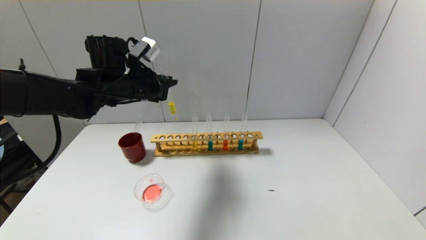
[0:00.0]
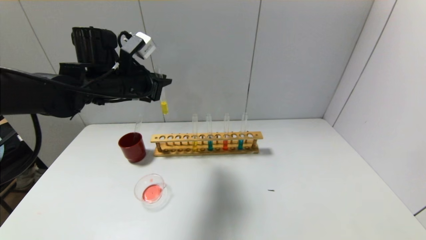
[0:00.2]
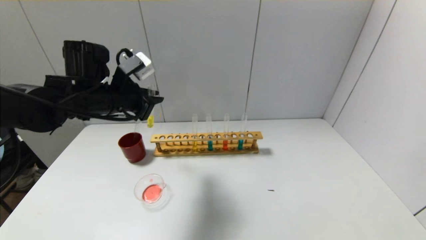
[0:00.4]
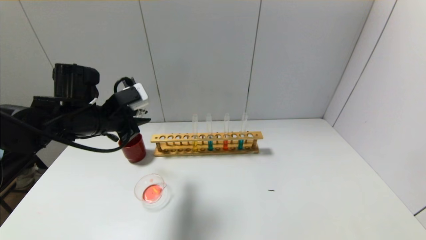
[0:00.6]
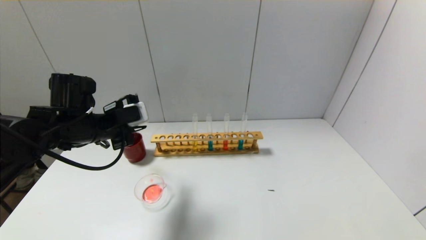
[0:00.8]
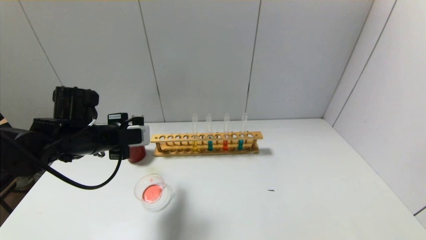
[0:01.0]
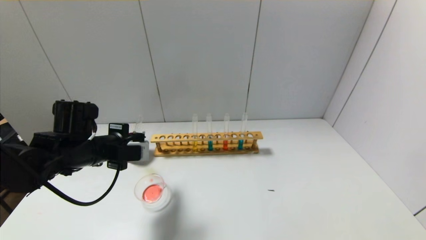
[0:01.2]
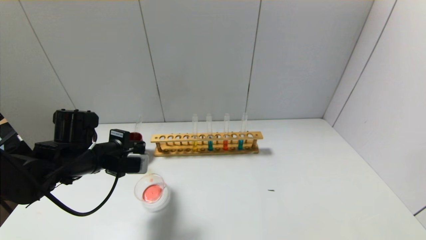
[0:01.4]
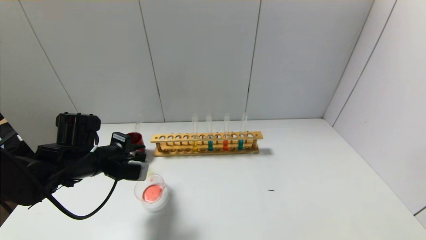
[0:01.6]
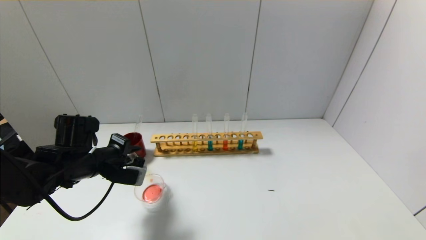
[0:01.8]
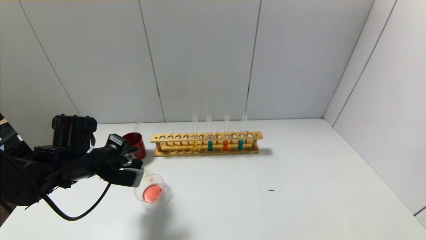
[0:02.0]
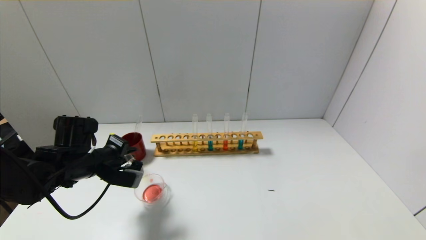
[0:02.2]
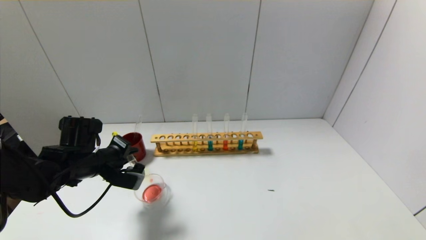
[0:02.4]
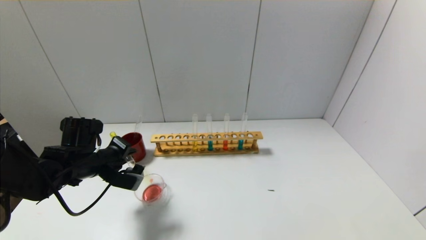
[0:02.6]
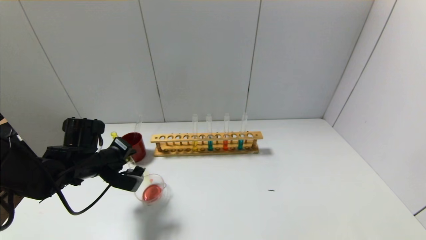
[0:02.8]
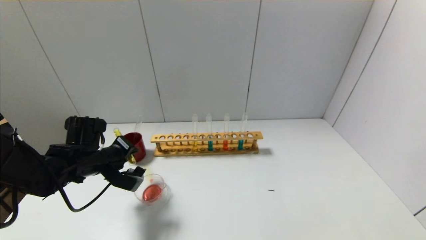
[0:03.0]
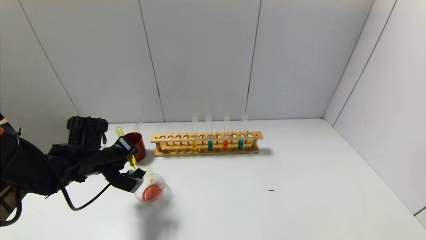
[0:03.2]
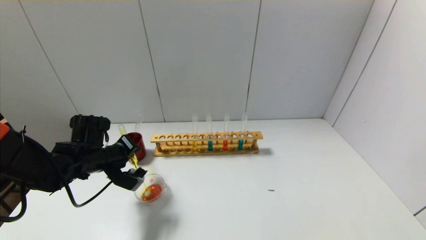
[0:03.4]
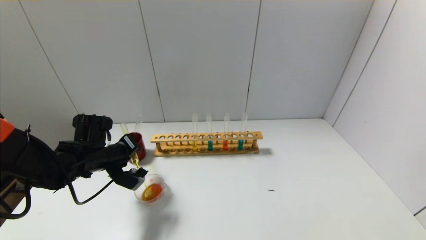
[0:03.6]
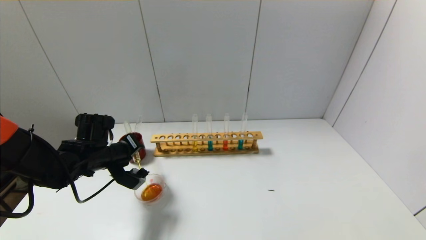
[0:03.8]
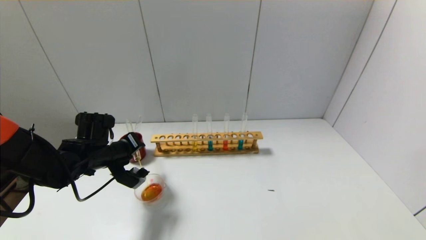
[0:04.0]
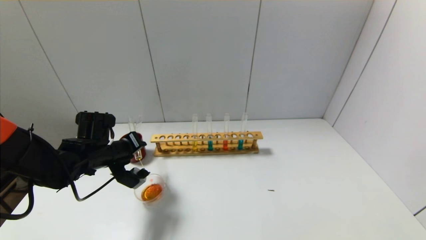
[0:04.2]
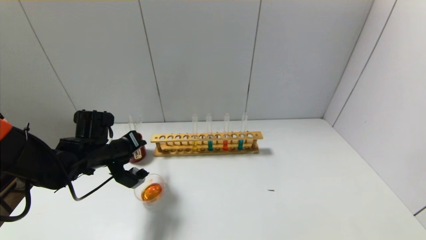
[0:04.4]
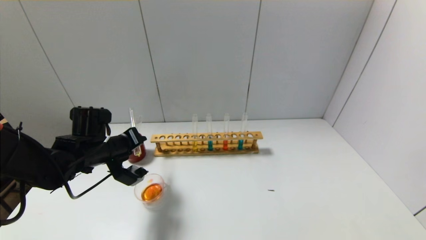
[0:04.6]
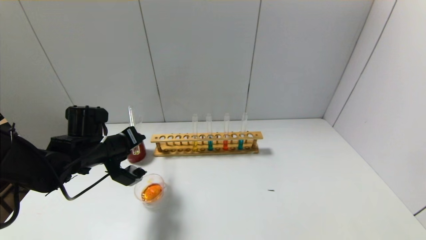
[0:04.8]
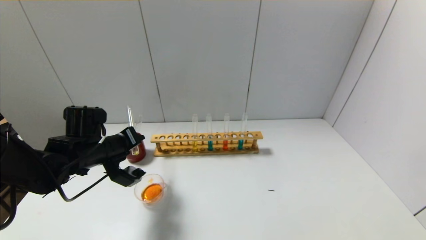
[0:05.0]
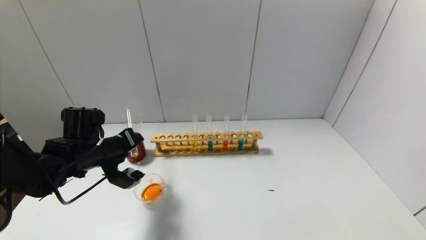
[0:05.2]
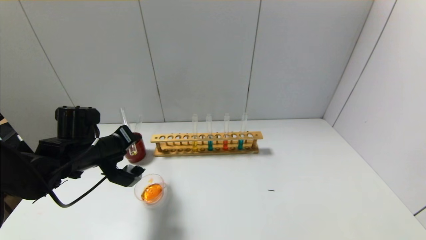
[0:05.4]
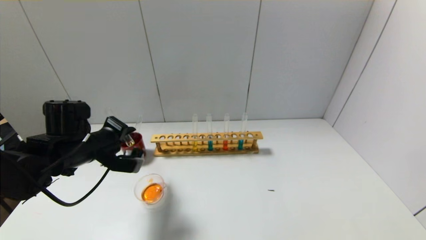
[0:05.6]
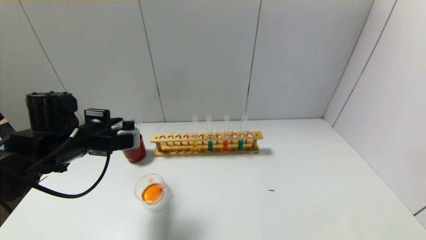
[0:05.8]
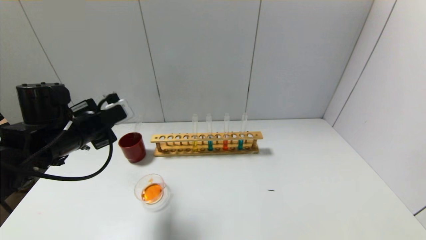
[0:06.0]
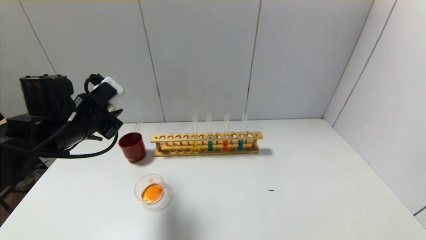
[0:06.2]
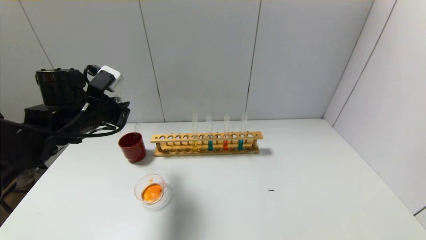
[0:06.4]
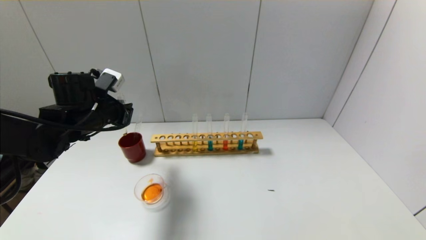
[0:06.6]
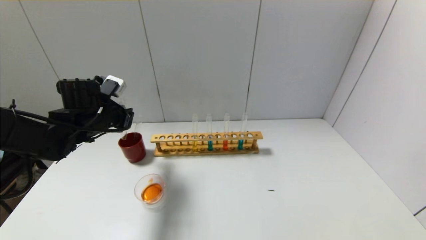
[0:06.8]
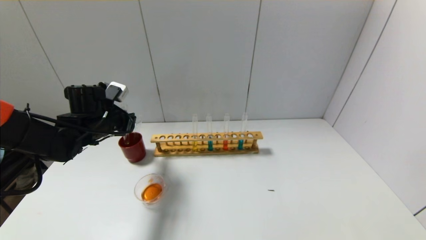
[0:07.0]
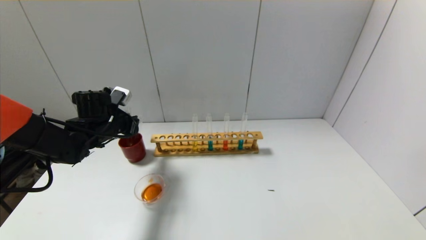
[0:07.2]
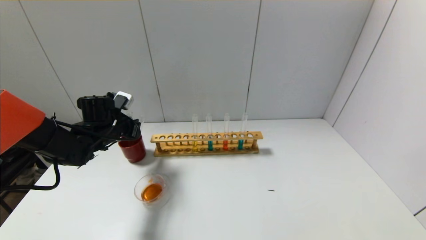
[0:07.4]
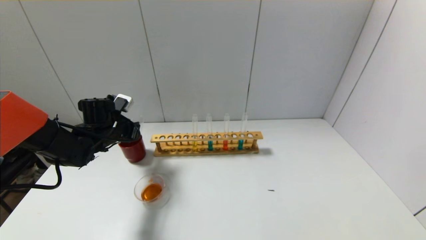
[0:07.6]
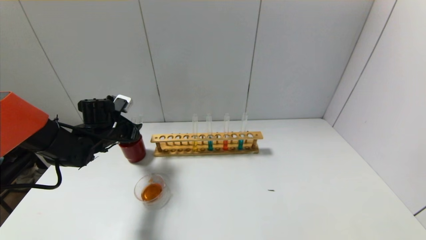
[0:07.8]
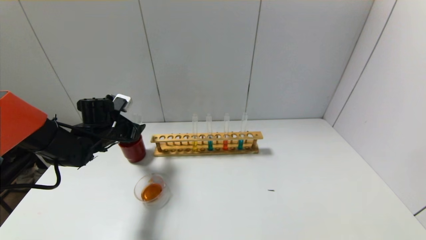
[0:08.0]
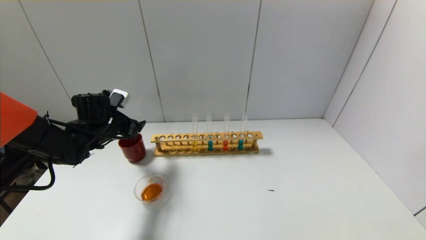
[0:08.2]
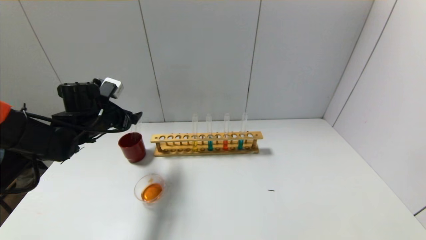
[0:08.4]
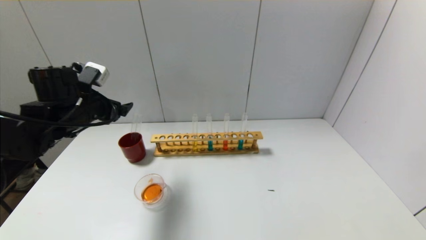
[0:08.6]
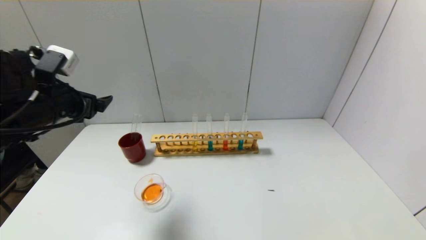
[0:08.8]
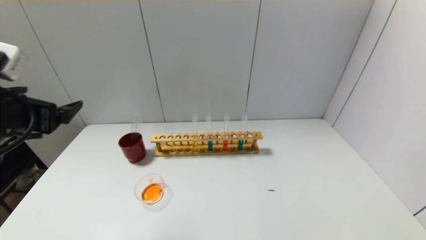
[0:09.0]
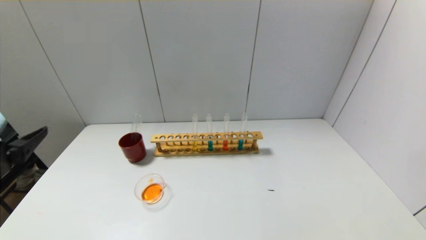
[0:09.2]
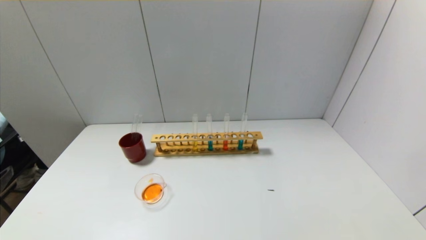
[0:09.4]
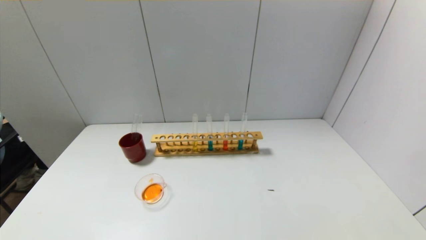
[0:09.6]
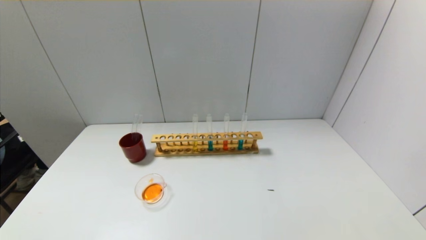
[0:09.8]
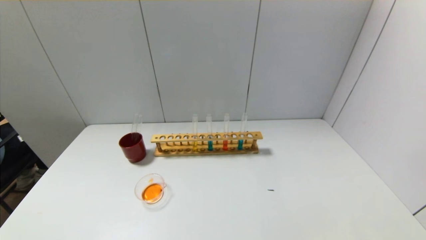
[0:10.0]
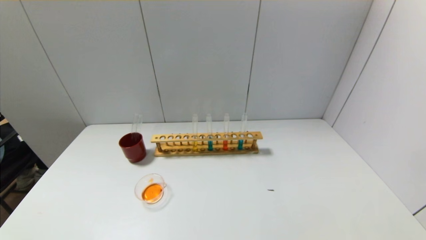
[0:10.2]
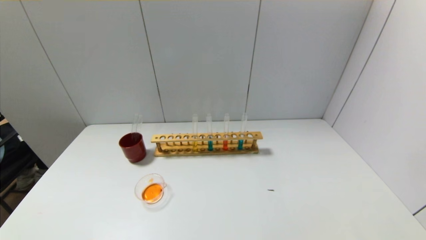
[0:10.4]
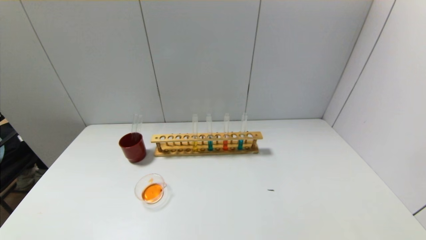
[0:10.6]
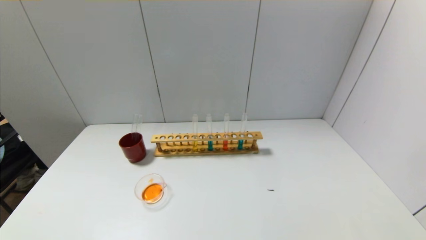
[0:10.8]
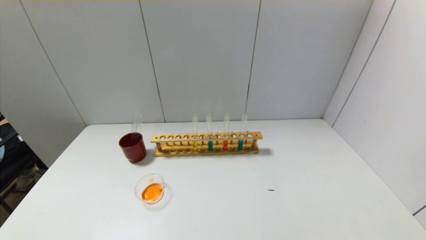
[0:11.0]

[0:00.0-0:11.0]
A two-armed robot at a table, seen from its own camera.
Step, 0:00.0 to 0:05.6: Pour the yellow reagent into the graduated cylinder with the left gripper.
Step, 0:05.8 to 0:07.6: Place the test tube into the brown cup with the left gripper.
0:00.0 to 0:01.6: The left gripper heads downward, backward and to the left, covering approximately 15 cm.
0:04.8 to 0:06.2: The left gripper is displaced upward by roughly 5 cm.
0:06.2 to 0:07.8: The left gripper goes about 15 cm forward and downward, and opens up.
0:07.8 to 0:09.4: The left gripper travels backward by some 35 cm, and opens up.

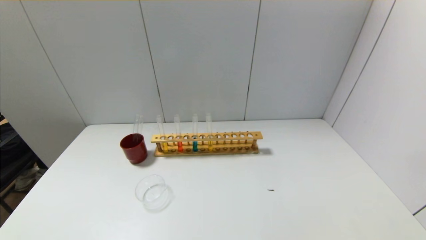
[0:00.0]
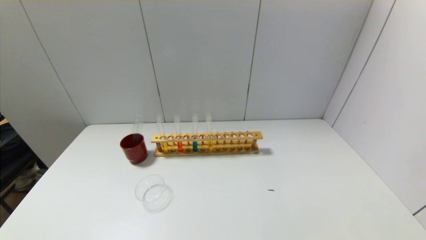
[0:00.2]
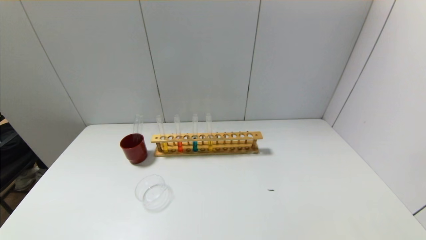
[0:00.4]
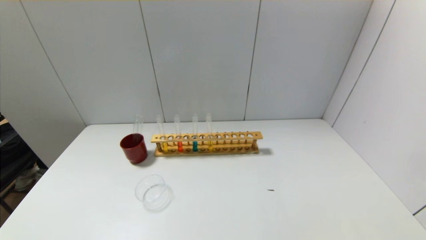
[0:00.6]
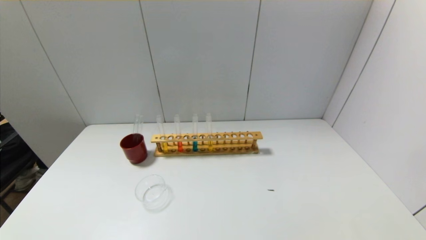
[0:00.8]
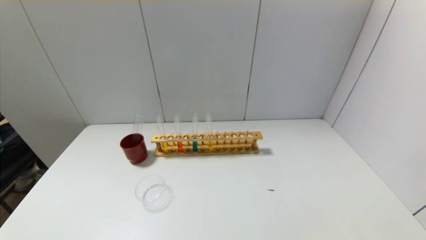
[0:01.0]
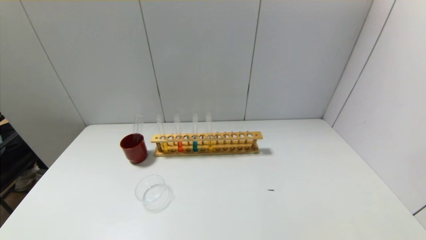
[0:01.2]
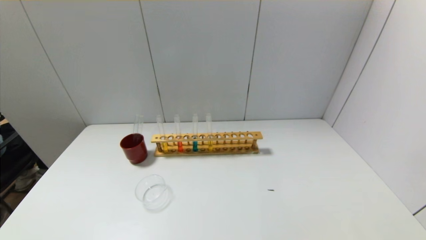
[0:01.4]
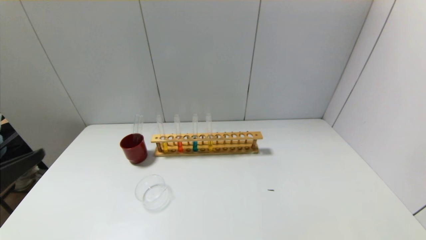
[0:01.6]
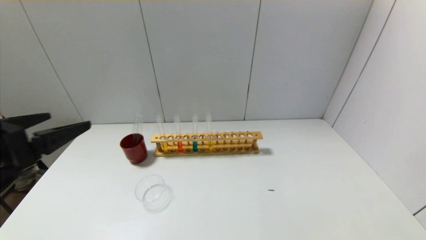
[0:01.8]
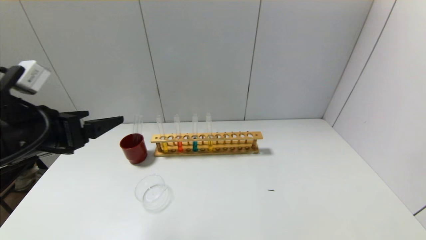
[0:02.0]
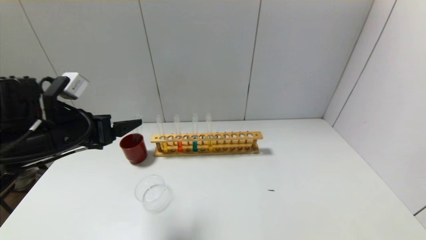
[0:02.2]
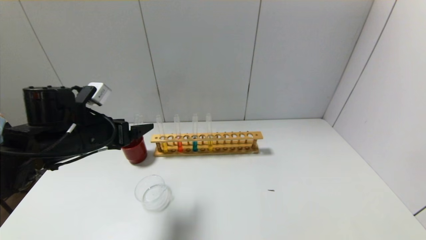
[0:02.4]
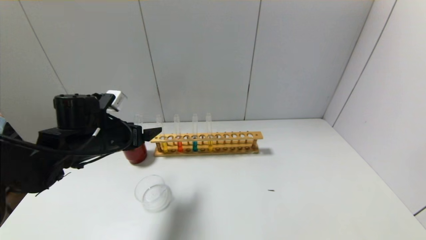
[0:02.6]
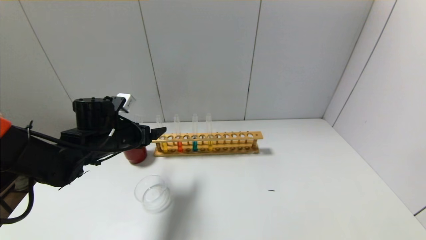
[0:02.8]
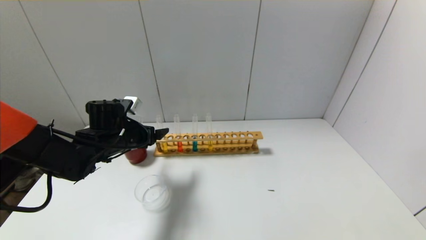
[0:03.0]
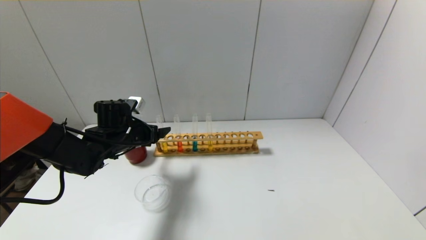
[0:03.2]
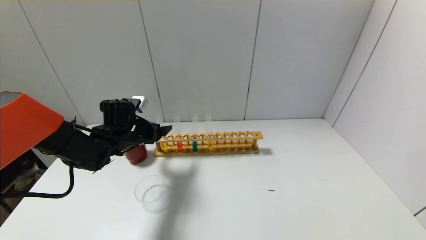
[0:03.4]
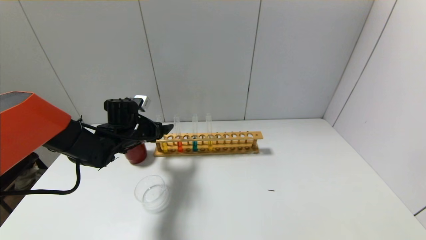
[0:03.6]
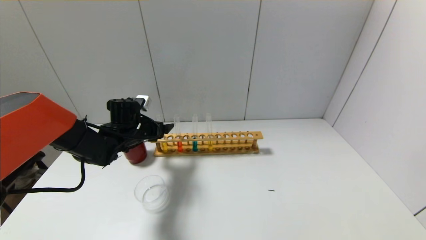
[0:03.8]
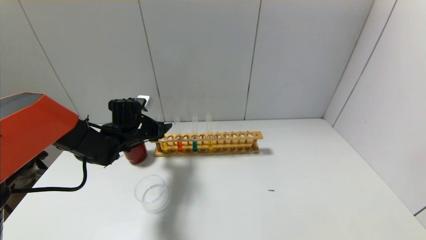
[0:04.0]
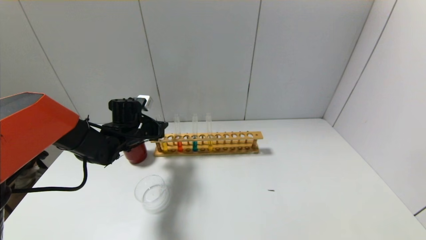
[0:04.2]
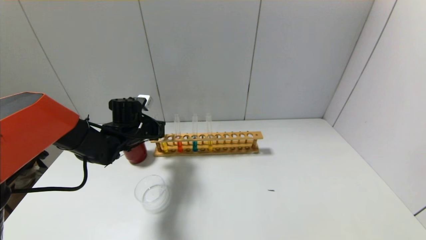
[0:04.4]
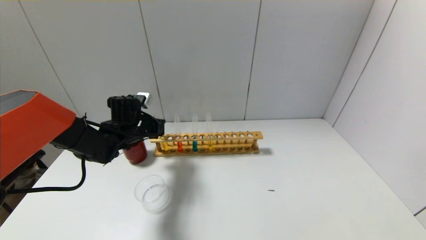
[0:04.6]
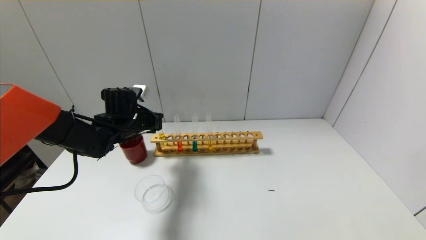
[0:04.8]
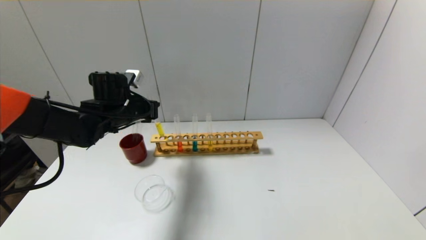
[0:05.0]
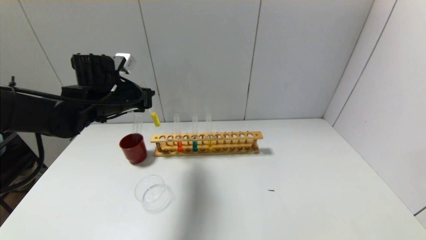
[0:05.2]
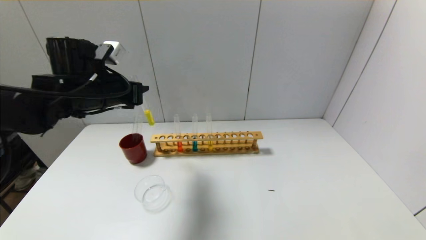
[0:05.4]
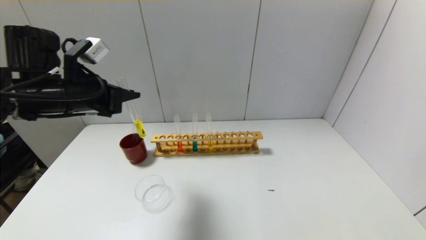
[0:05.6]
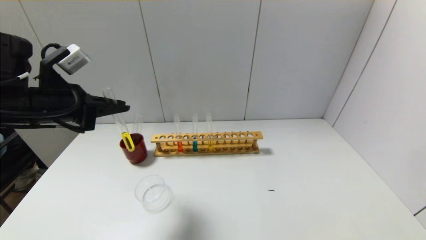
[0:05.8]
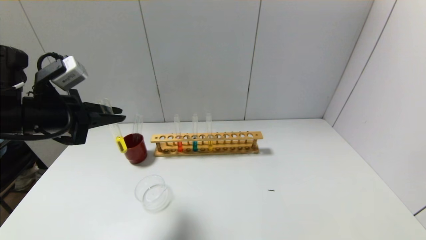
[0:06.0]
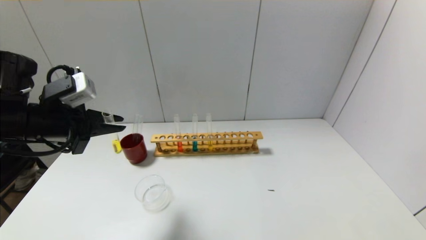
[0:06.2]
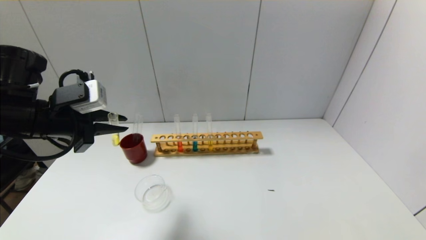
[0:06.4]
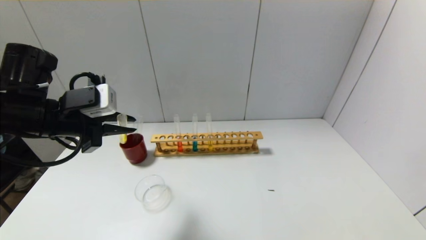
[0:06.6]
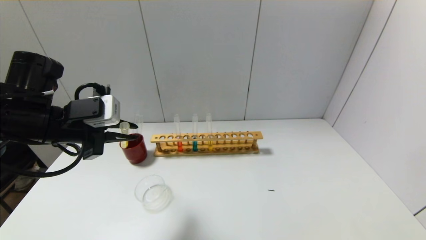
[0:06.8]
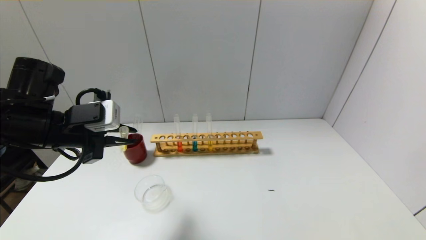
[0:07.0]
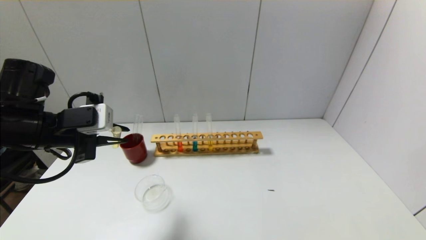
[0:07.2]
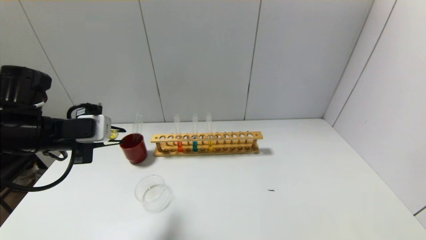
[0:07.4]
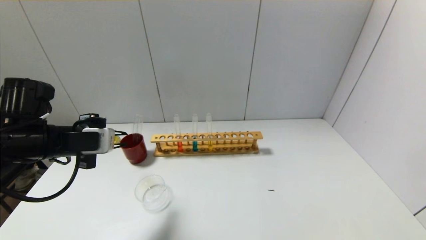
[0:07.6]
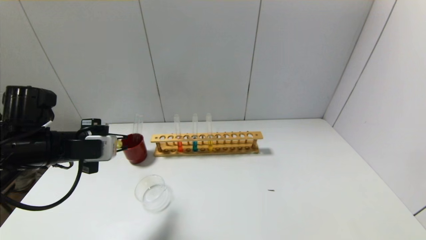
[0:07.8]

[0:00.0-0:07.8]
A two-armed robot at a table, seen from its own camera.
Step, 0:00.0 to 0:04.4: Grasp the yellow reagent with the left gripper.
0:01.6 to 0:03.2: The left gripper is displaced forward and downward by approximately 30 cm.
0:03.2 to 0:04.6: The left gripper closes.
0:04.6 to 0:06.2: The left gripper goes some 20 cm backward, upward and to the left.
0:06.2 to 0:07.8: The left gripper moves downward, about 5 cm.
